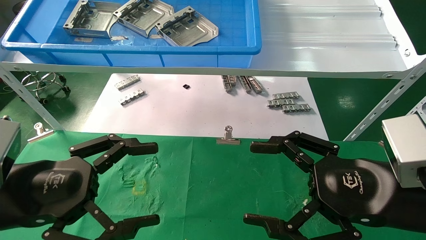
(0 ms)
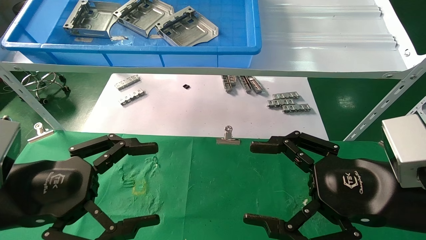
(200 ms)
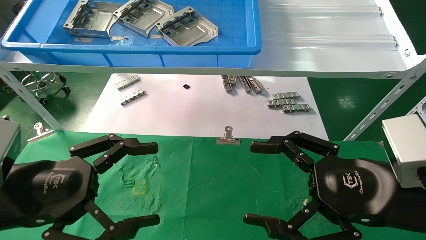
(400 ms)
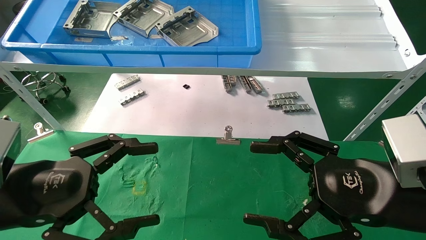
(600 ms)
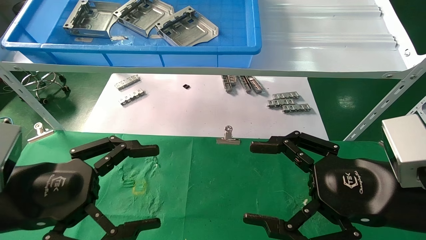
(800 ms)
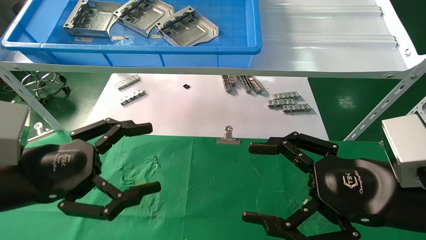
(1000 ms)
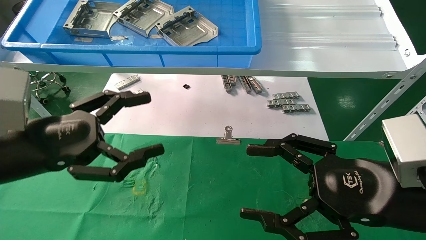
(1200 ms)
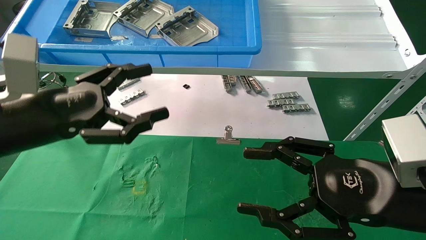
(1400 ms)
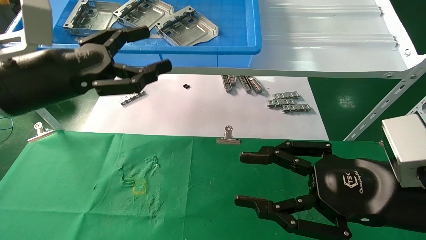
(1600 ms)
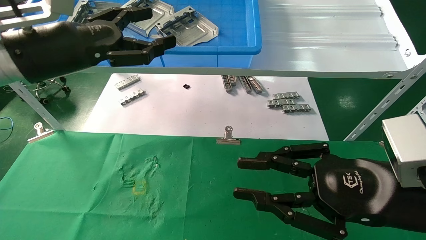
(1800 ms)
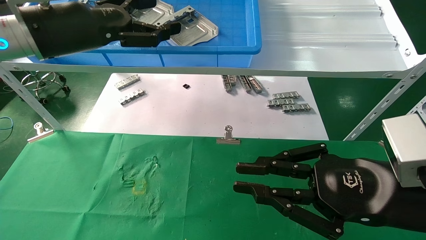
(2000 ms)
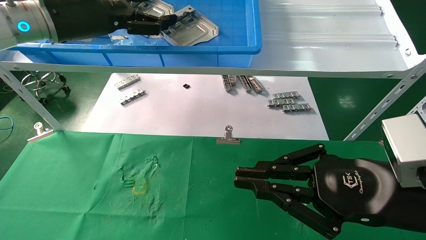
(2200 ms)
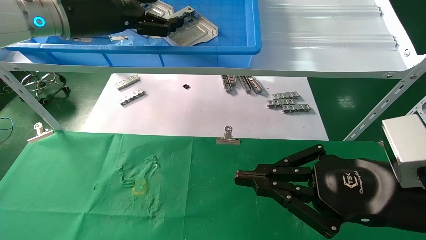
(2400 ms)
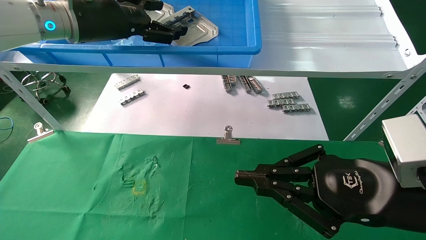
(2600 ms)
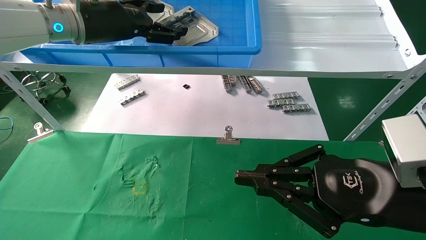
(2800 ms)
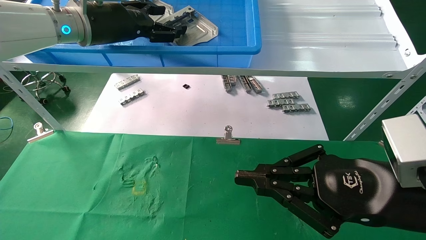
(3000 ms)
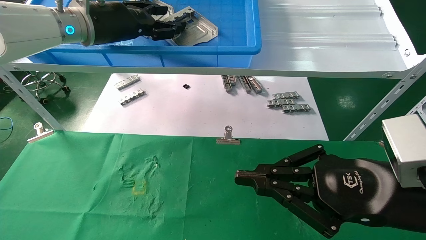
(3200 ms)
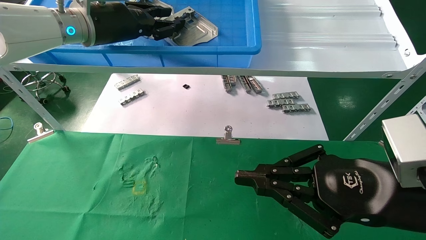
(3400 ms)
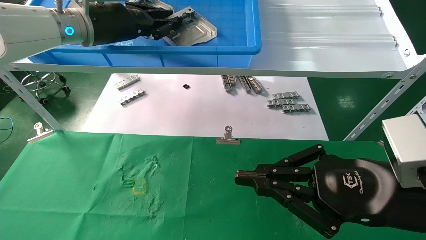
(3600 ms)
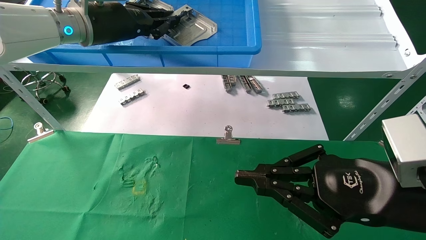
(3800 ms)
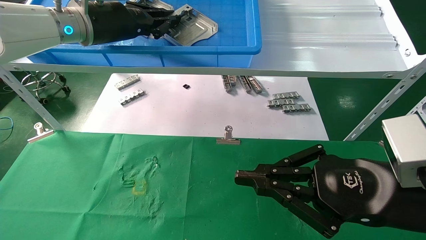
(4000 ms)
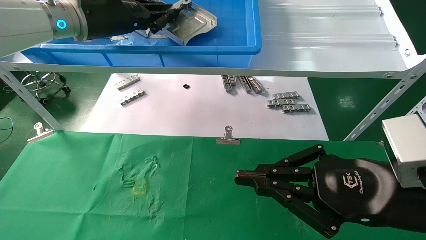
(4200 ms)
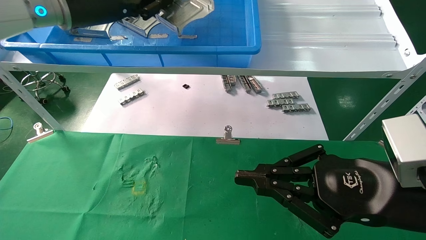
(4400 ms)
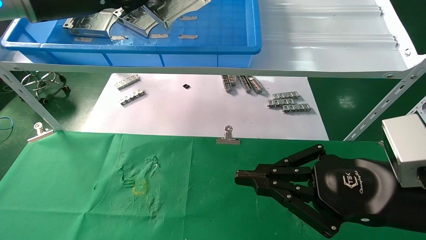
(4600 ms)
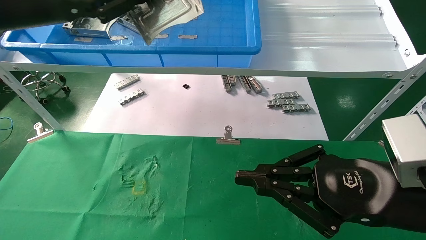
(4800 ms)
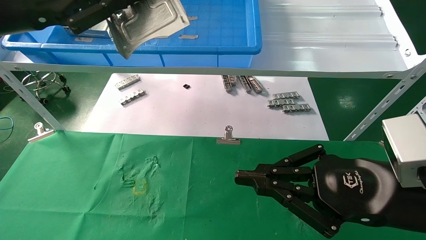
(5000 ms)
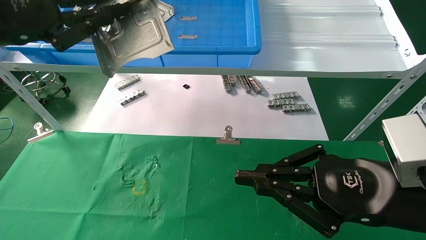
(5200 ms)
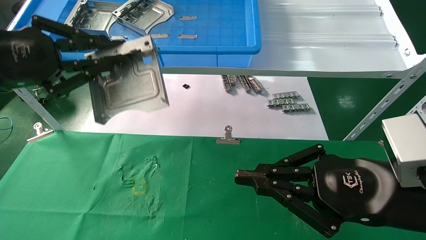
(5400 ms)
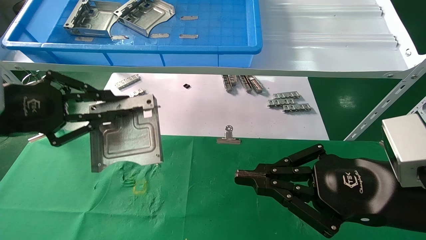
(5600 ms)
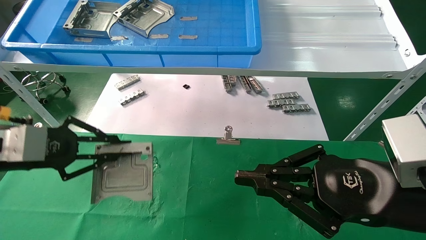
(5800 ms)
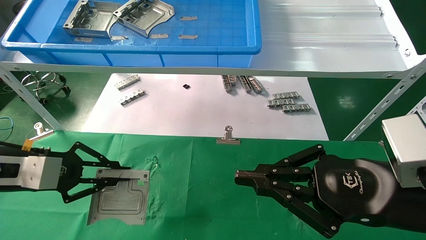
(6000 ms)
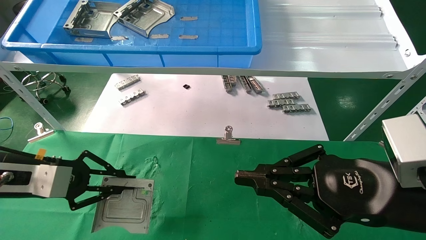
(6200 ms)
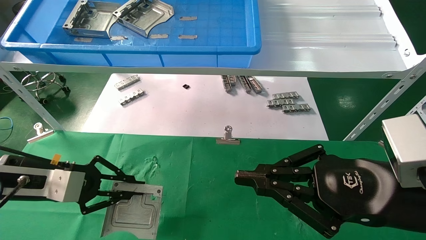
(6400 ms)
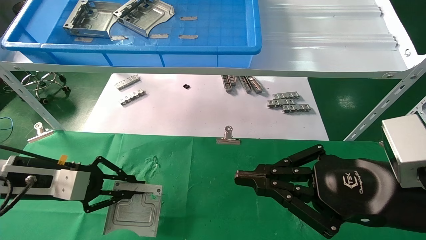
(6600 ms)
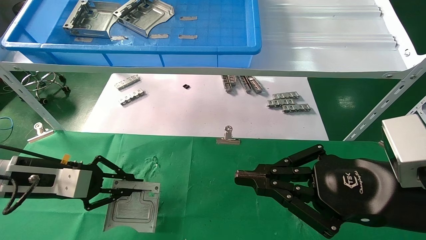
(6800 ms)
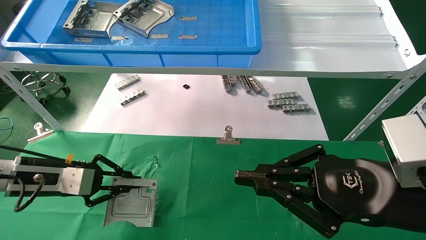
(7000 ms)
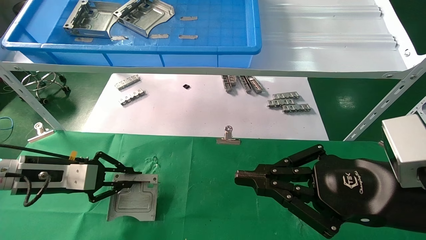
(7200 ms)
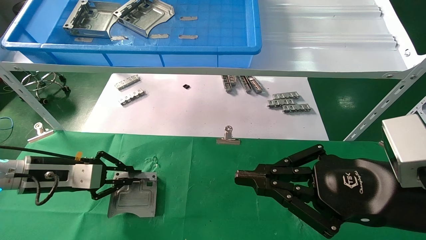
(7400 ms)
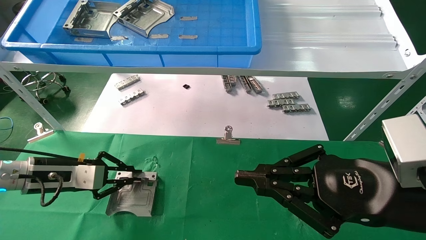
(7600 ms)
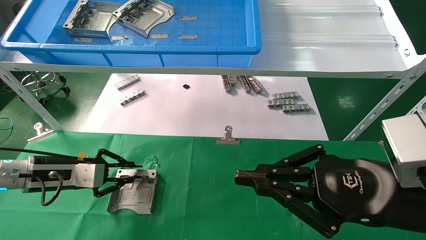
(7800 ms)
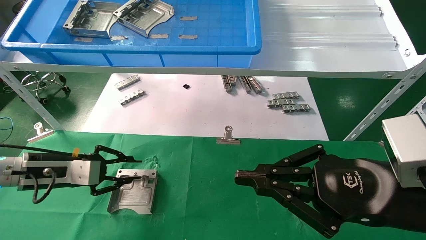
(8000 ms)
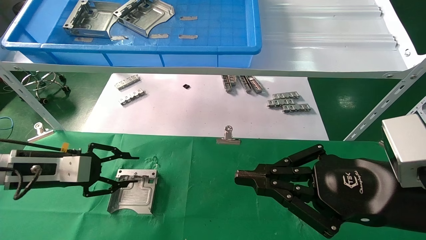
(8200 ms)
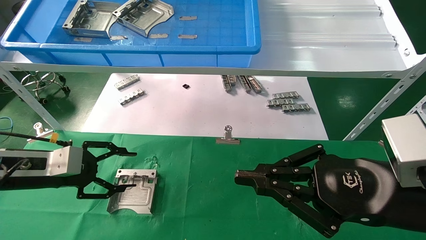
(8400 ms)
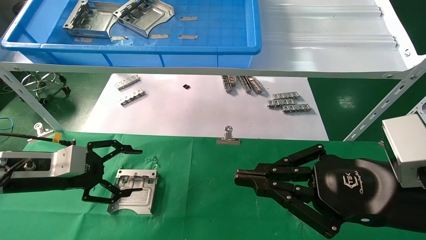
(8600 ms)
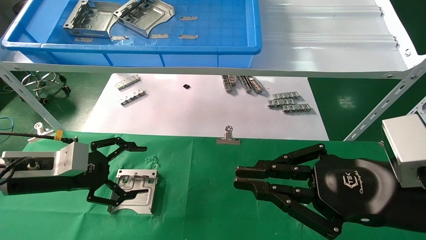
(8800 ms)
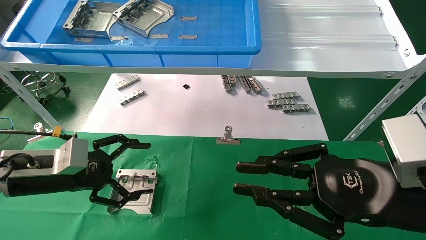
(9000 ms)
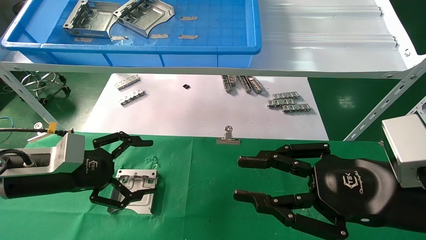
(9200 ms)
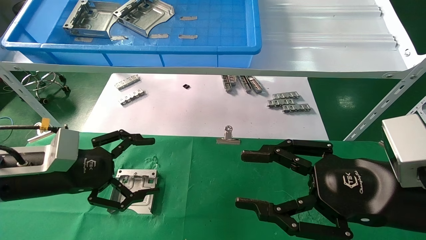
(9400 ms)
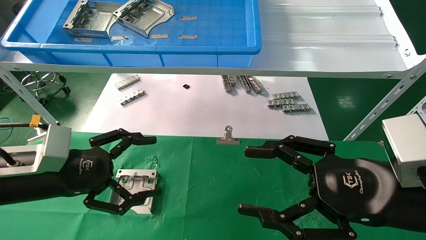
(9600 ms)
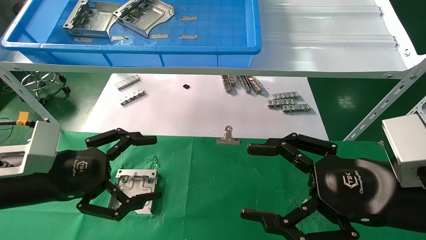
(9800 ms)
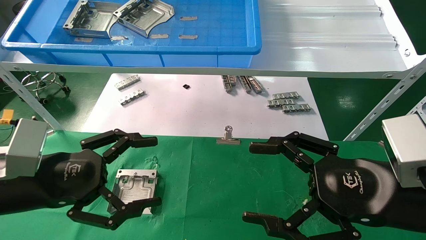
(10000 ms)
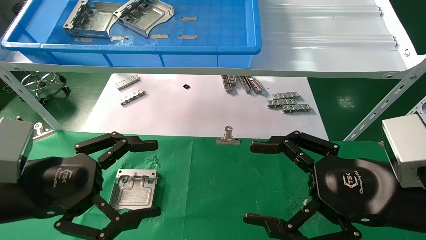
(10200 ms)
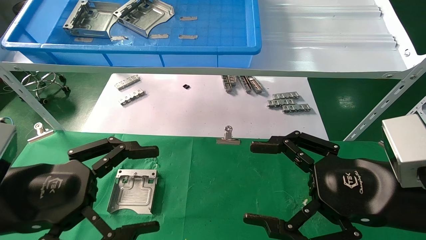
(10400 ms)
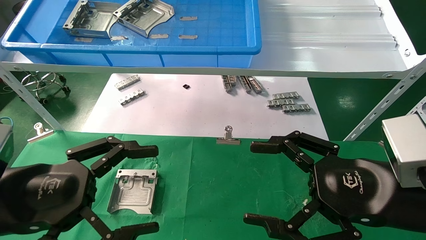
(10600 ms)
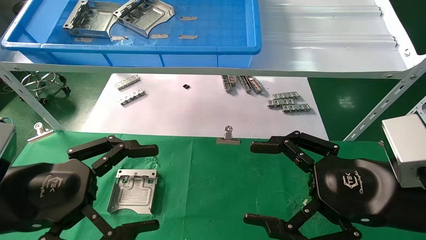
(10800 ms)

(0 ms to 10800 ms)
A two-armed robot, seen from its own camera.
Task of the whole recording: use the mechanical arm to pick up the parts and place them on the table.
Step, 1200 ms - 3800 ms: Pick up the hard drive bracket from the feeding area.
Step, 4000 ms - 7800 ms: Place the hard drive bracket into the box.
0 ms - 1600 ms: The right gripper closes; the left gripper moves upward and forward, some 15 cm.
1600 ms - 3000 ms: The right gripper closes. The left gripper moves forward, upward and to the right, some 15 cm.
3000 ms - 4600 ms: The left gripper heads backward, covering some 5 cm, and closes its fingers.
4600 ms - 6200 ms: The left gripper is displaced downward by some 25 cm.
6200 ms - 7800 ms: The left gripper heads forward, covering approximately 5 cm.
7800 ms - 9200 ms: The left gripper shifts about 5 cm backward, and opens its fingers.
9200 ms - 10800 ms: The left gripper shifts about 10 cm backward. Meanwhile the right gripper opens up.
